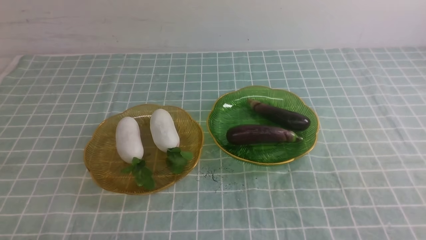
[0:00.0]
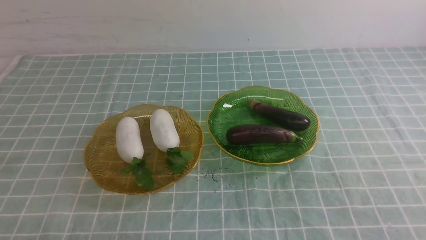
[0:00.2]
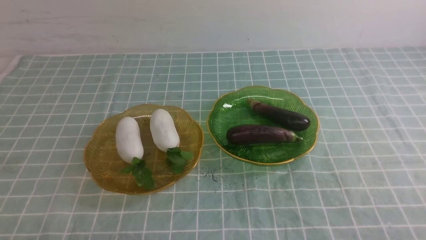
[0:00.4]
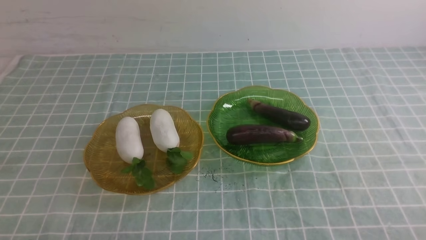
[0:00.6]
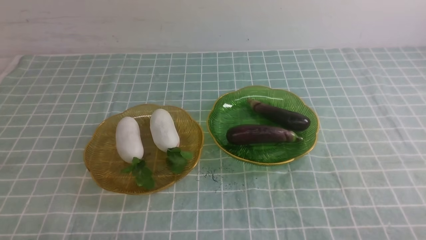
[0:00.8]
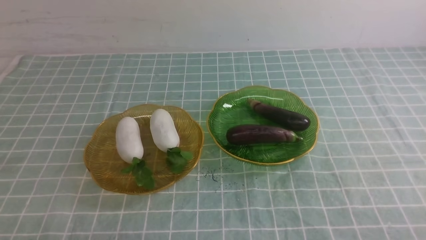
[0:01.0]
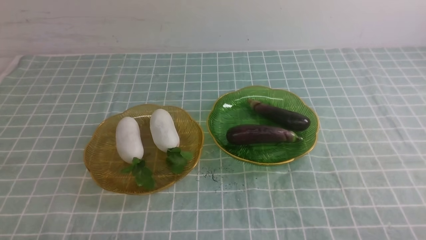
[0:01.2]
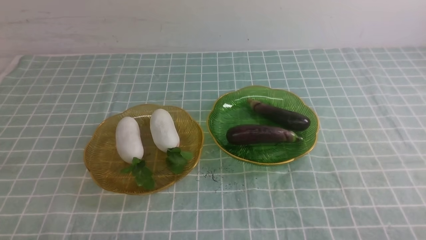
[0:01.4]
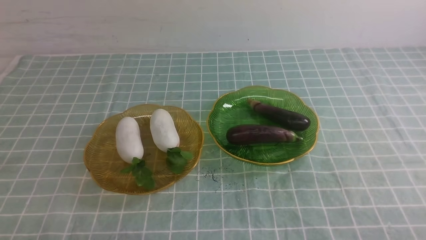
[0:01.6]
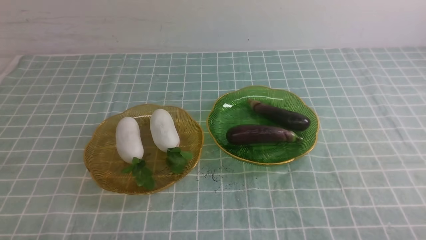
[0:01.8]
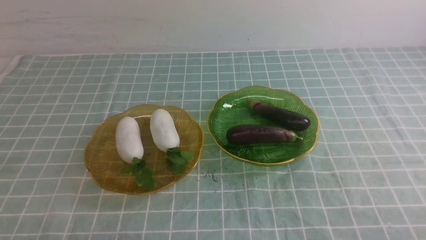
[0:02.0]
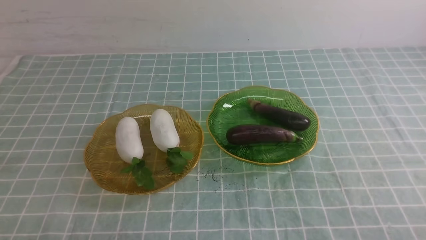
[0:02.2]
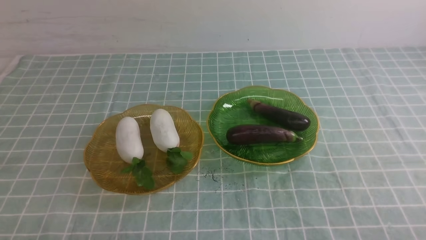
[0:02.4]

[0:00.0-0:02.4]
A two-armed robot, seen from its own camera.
0:01.2 to 0:02.4: Both grippers stay about where they are.
